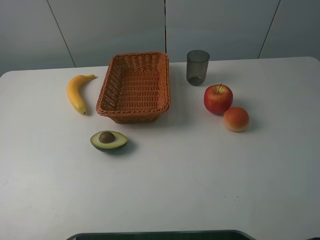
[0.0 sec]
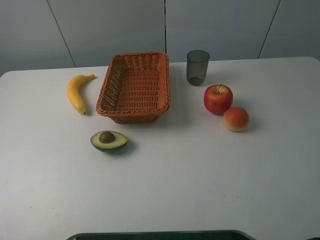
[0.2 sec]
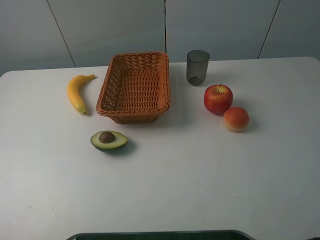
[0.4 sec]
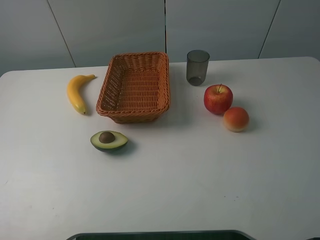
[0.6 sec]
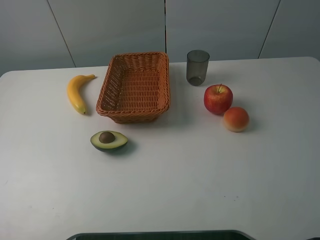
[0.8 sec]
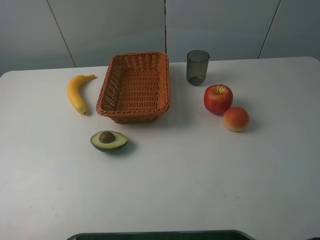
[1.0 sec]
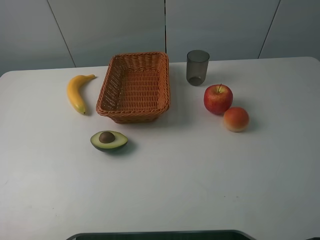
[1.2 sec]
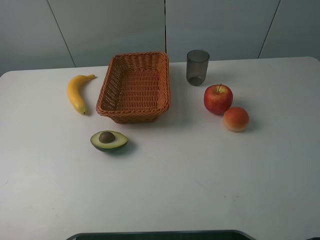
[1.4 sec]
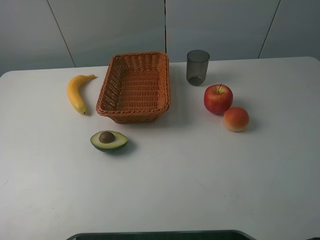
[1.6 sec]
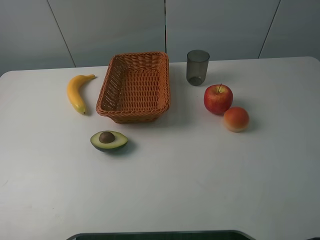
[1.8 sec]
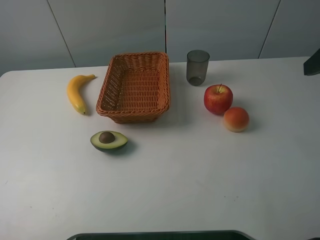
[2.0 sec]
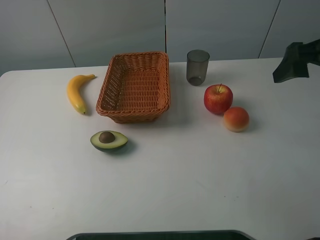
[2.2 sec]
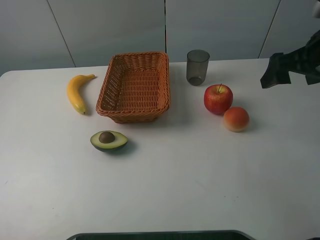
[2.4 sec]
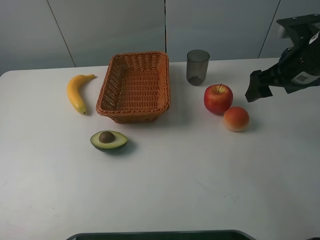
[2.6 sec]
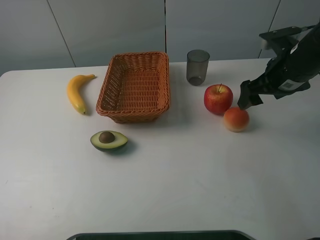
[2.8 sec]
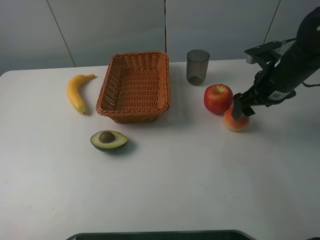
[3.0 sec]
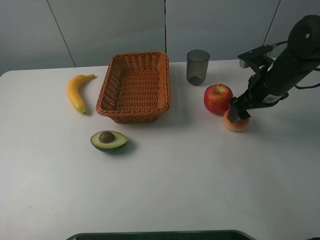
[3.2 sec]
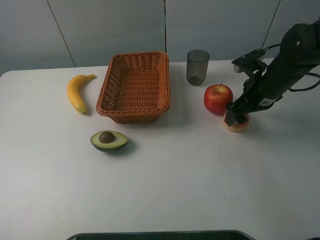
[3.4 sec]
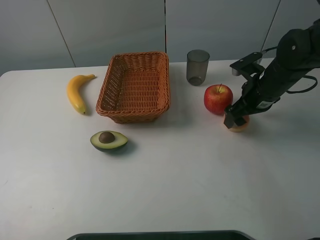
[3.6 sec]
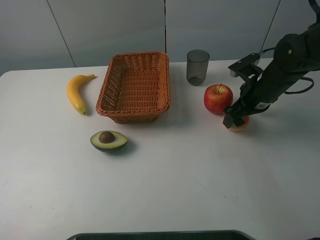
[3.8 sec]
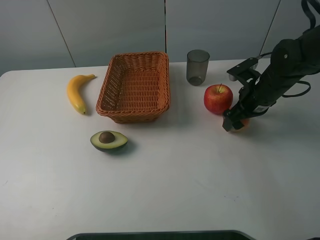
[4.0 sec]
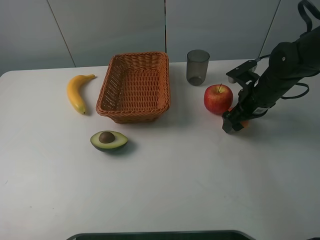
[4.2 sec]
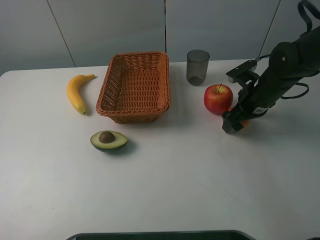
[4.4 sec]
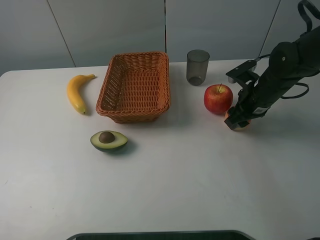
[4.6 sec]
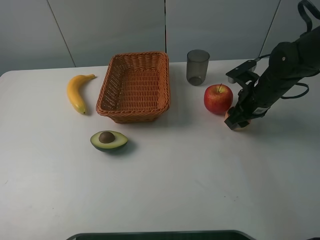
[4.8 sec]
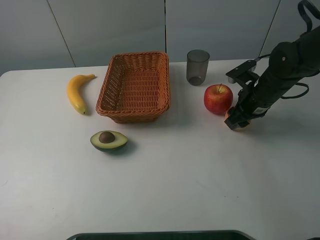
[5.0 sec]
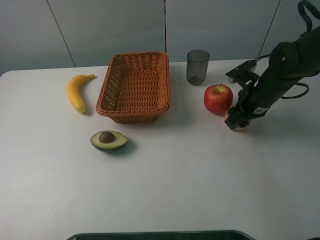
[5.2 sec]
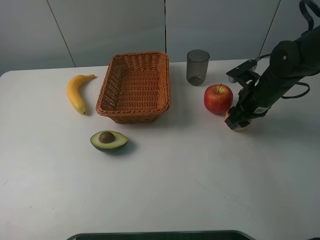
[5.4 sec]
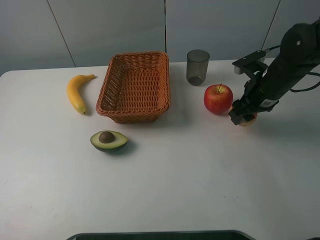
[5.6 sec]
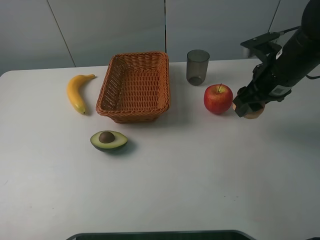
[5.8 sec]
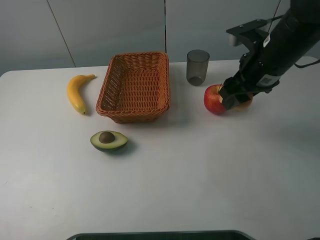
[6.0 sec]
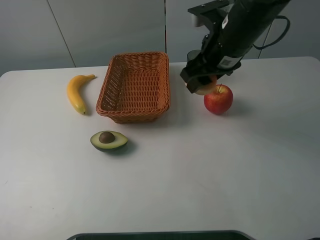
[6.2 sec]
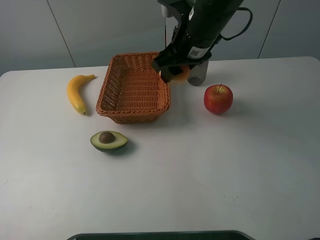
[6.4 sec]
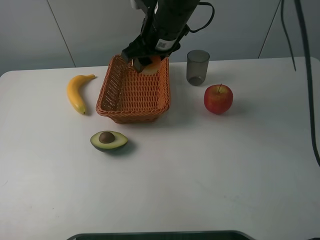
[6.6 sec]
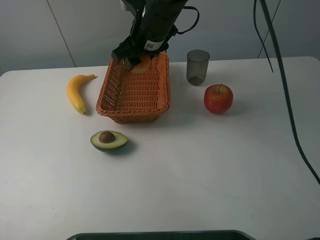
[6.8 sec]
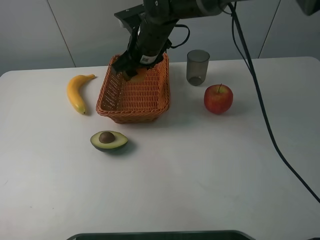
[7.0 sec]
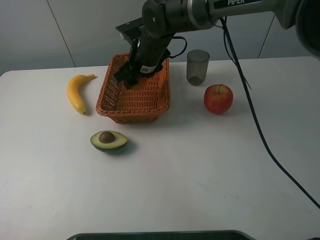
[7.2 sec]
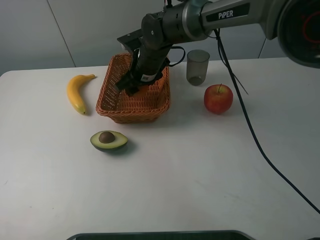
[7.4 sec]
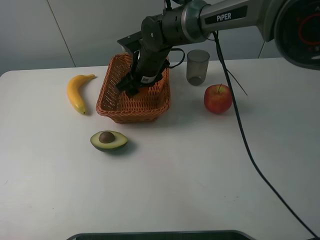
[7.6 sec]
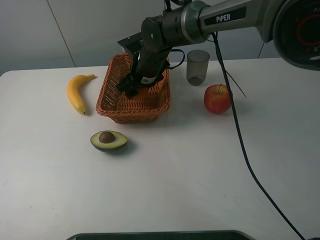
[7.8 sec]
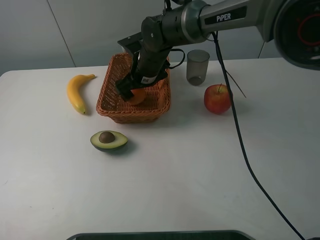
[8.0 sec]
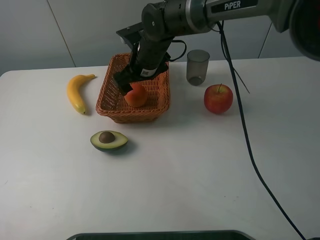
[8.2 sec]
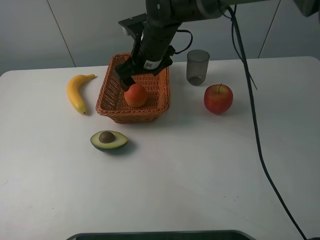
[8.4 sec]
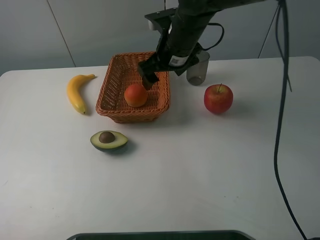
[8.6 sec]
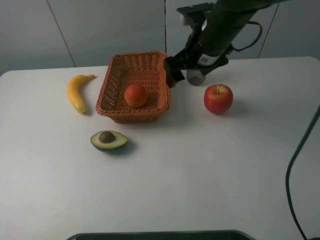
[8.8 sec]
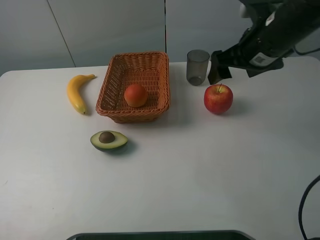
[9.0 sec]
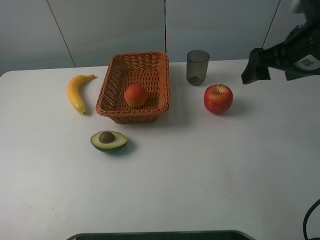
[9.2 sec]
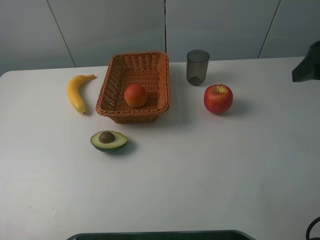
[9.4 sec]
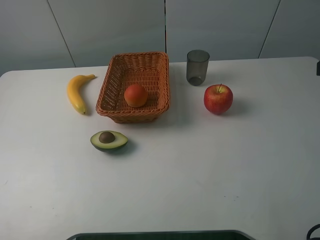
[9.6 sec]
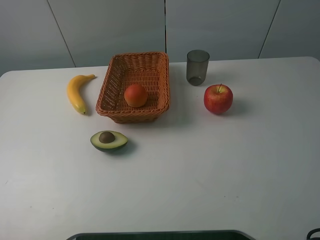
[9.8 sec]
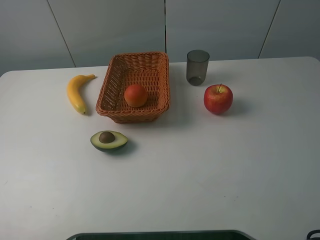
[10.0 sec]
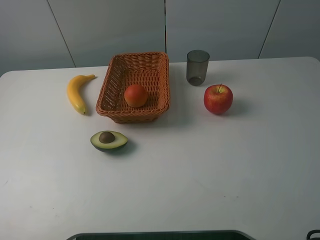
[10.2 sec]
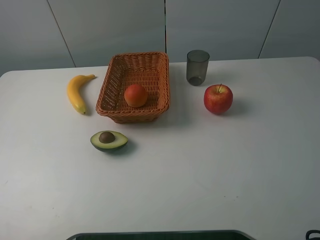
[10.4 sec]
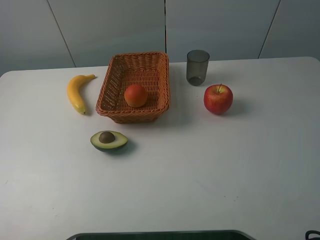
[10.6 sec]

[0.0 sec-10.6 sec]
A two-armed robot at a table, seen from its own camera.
1.6 sec to 3.0 sec: The right gripper travels forward and downward by some 30 cm.
3.0 sec to 4.6 sec: The right gripper moves downward, about 5 cm, and closes its fingers.
4.6 sec to 6.0 sec: The right gripper shifts about 10 cm upward.
6.0 sec to 7.6 sec: The right gripper heads to the left, forward and downward, covering roughly 25 cm.
7.6 sec to 9.0 sec: The right gripper is displaced to the right, upward and backward by about 25 cm, and opens.
9.0 sec to 10.6 sec: The right gripper travels backward by about 25 cm.

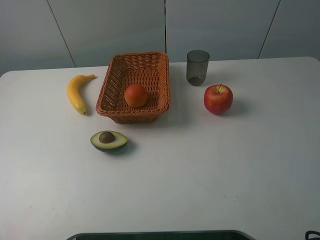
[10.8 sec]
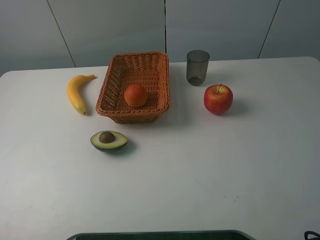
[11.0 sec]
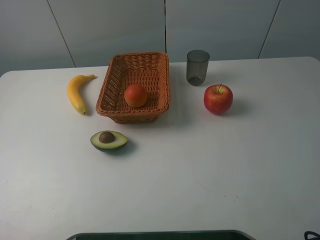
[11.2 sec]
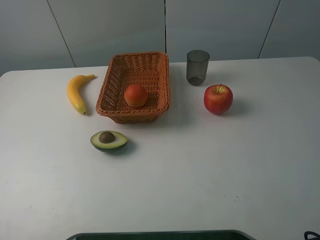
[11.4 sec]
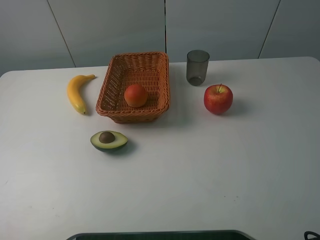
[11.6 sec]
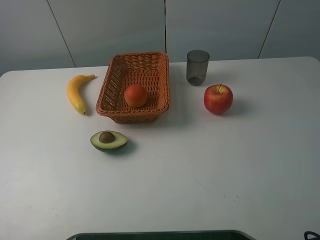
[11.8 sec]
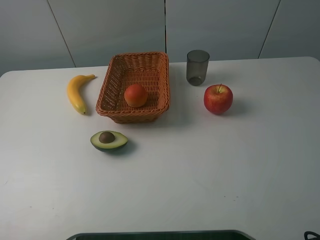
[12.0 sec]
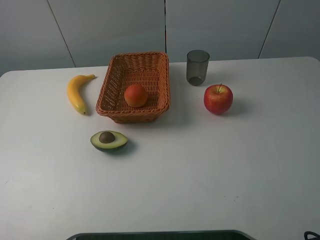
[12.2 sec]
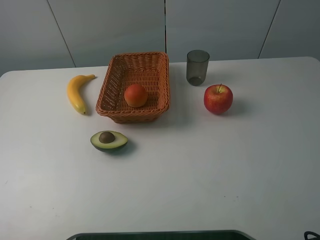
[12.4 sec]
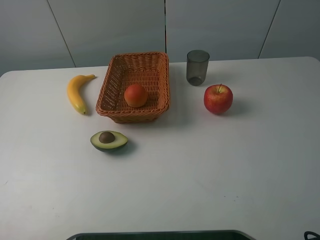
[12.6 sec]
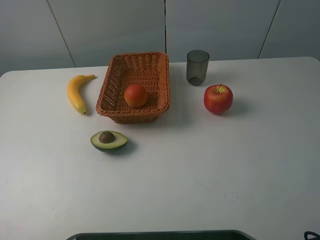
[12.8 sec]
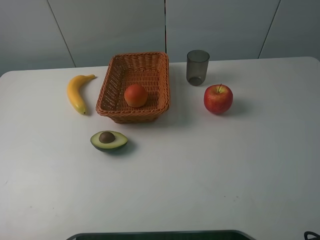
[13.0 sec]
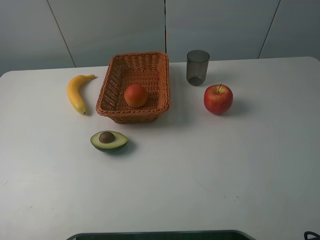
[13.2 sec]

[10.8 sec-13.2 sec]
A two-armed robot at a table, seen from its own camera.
10.8 sec to 13.2 sec: Both grippers stay put.
